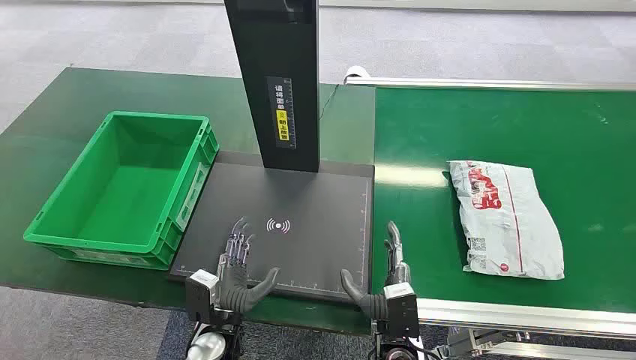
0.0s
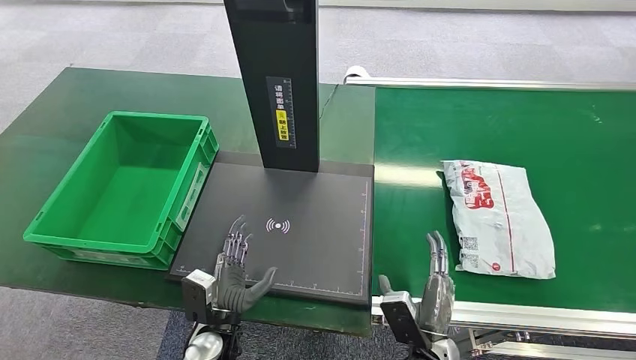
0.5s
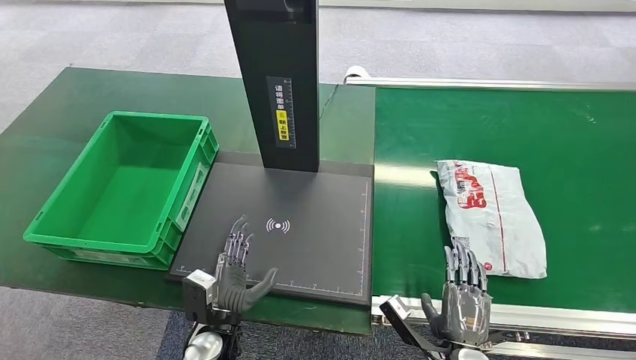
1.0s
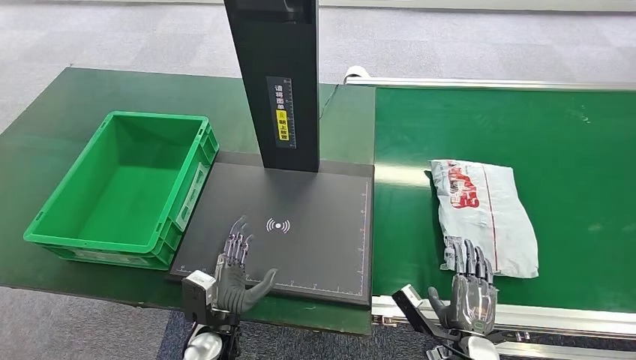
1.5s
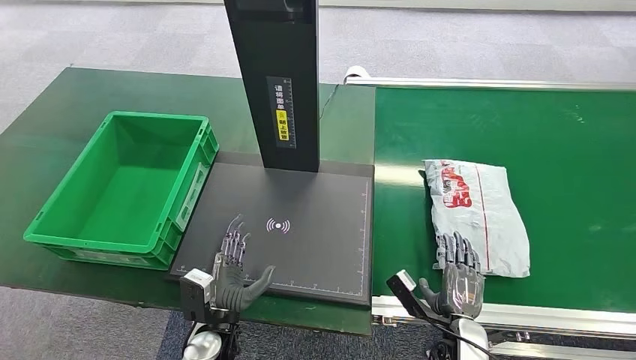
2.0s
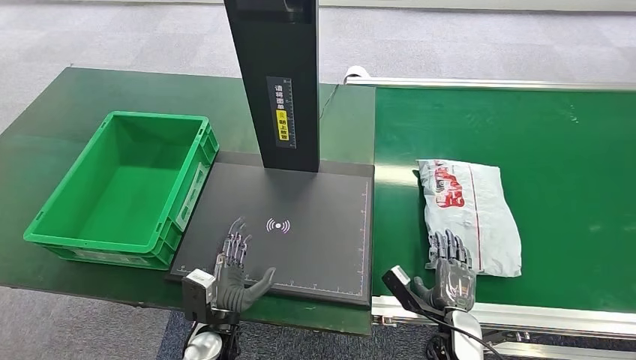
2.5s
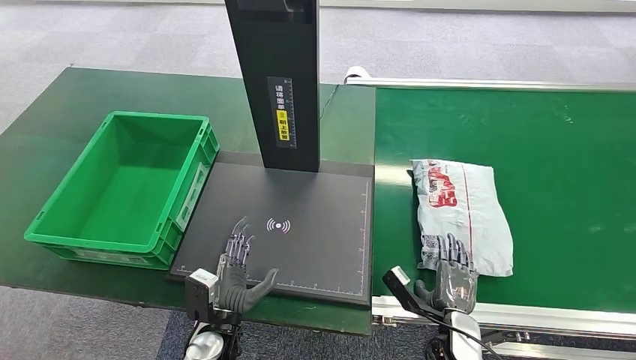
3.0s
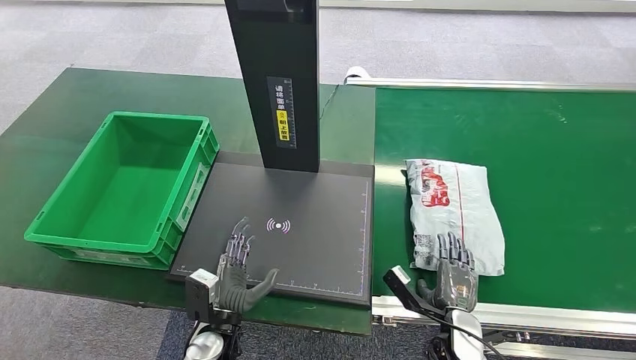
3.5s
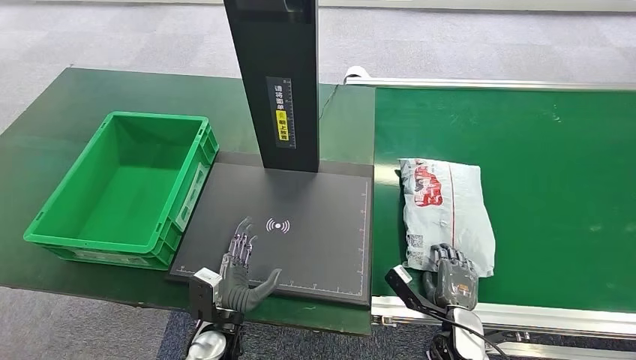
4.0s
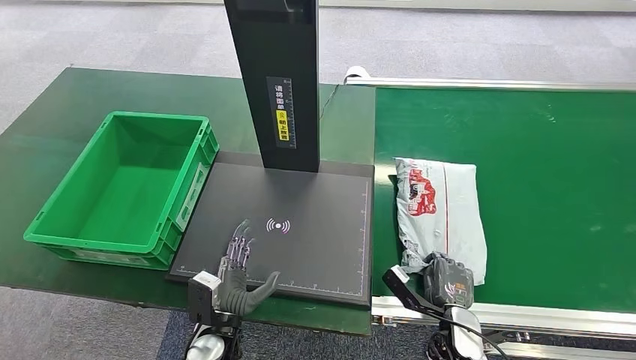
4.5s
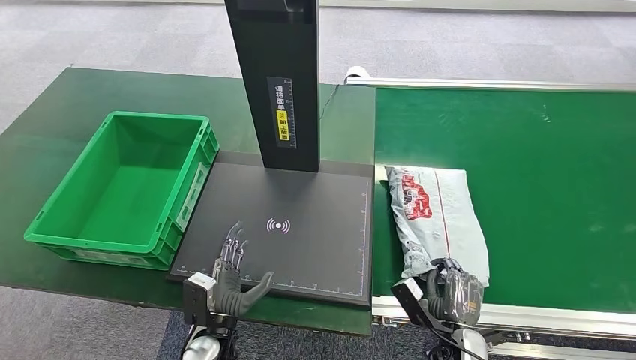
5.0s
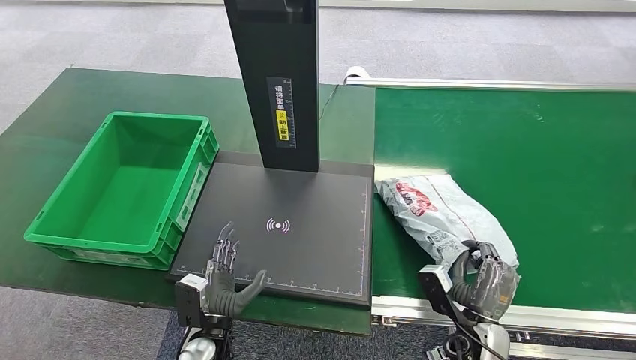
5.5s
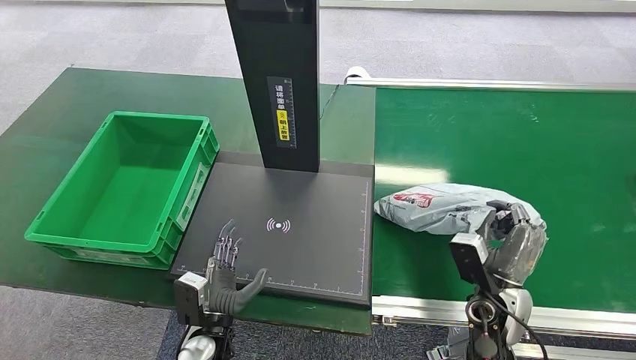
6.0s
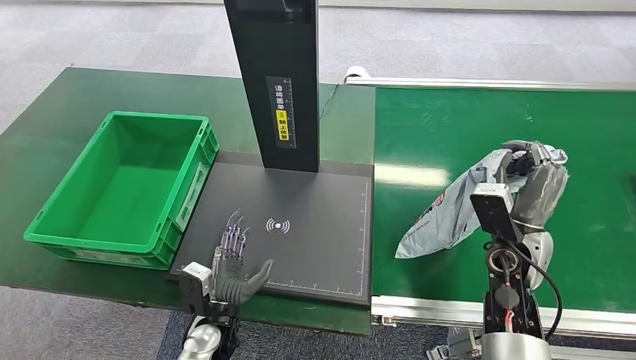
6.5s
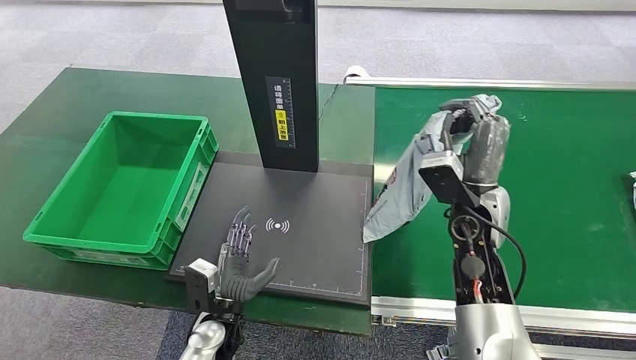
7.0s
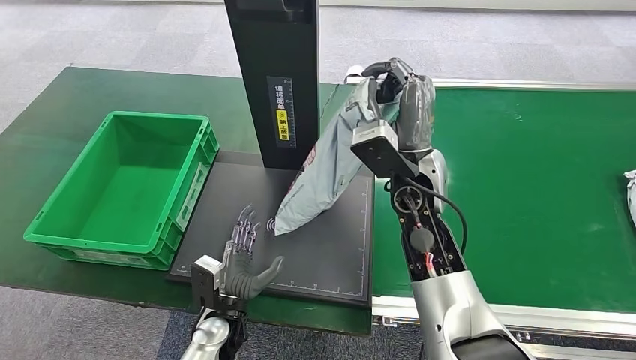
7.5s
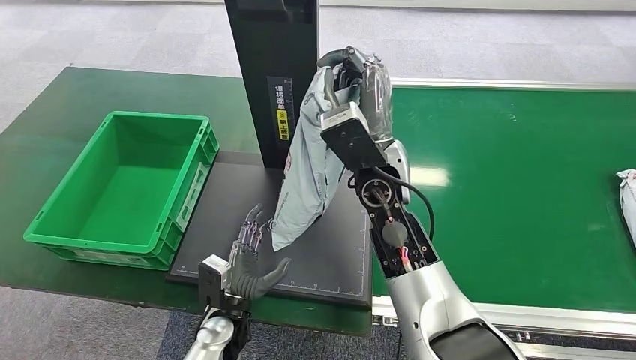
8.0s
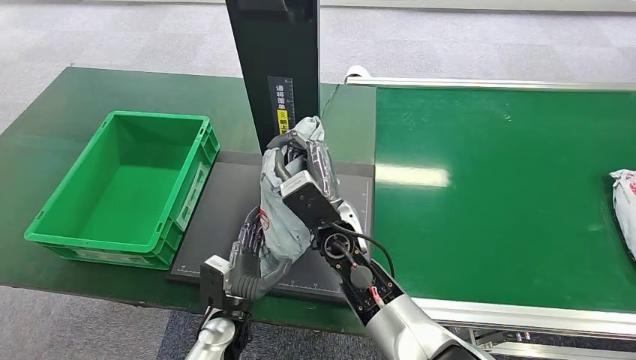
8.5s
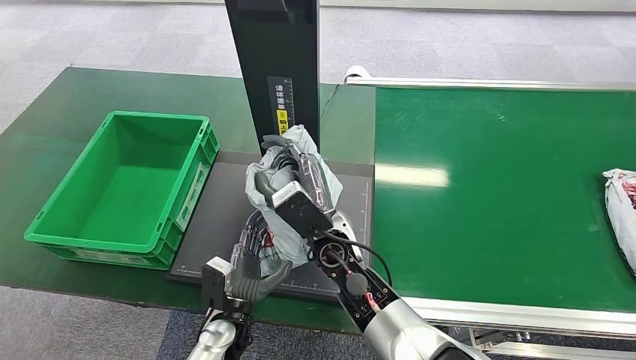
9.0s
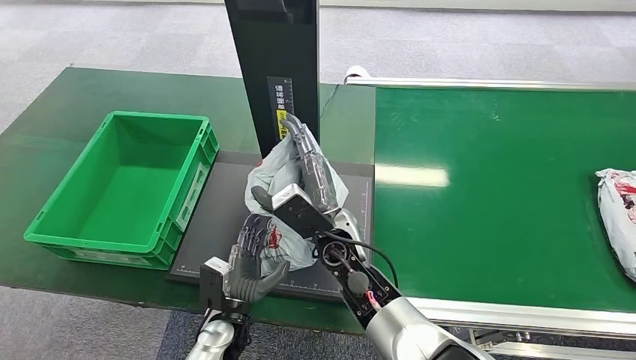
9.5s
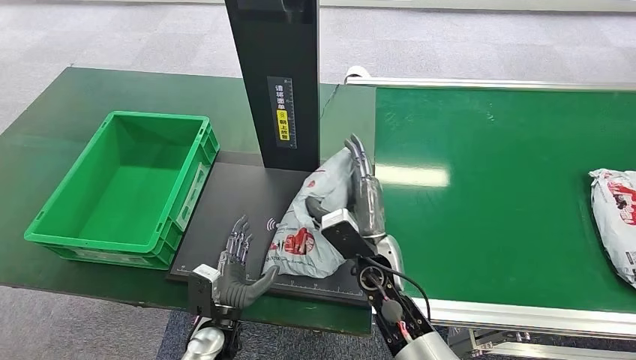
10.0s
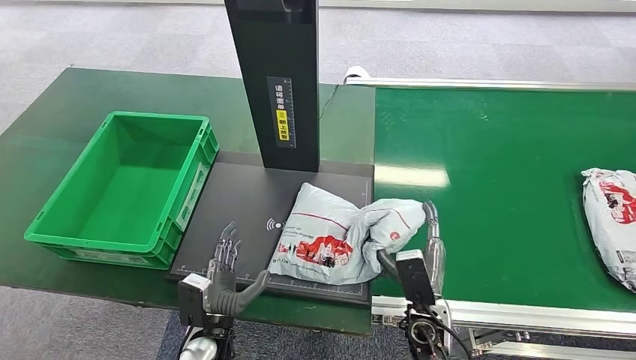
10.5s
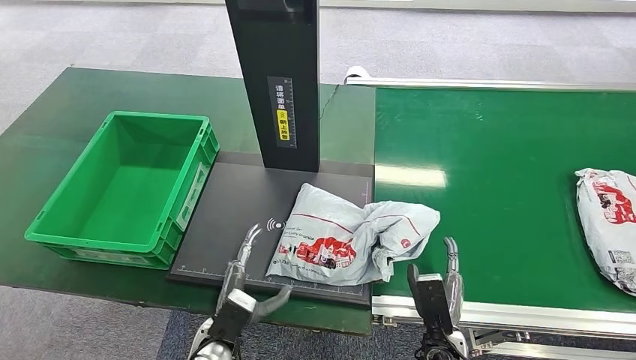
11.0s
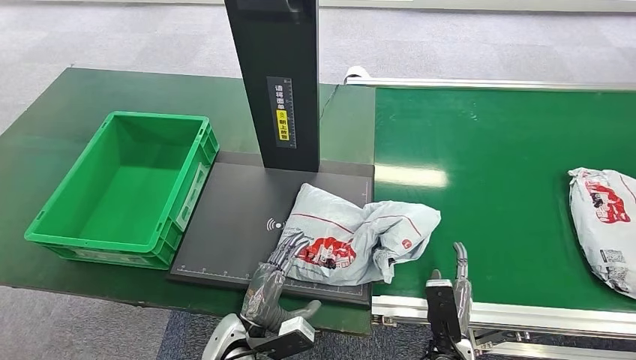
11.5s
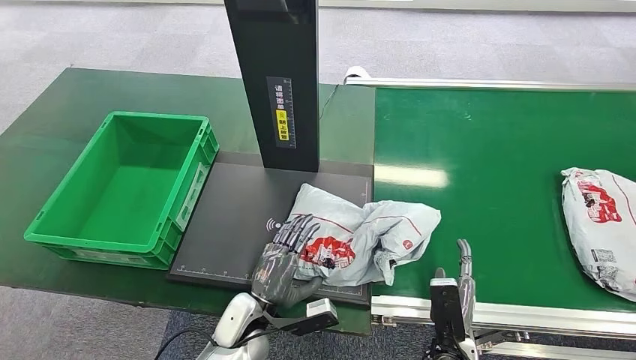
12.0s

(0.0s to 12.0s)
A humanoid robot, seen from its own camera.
Task of the whole recording: Weigh the package on the weighing device and place it in the left basket.
Step, 0.0s - 6.0s: Pick up the package from the conveyor belt.
2.0s - 4.0s: The hands stay close to where they were, moving slightly.
4.0s - 6.0s: The right hand goes roughly 10 cm upward.
8.0s - 10.0s: The right hand moves downward and backward, approximately 20 cm.
10.0s - 12.0s: The left hand moves about 5 cm. The right hand shifts roughly 20 cm backward, to the right and downward.

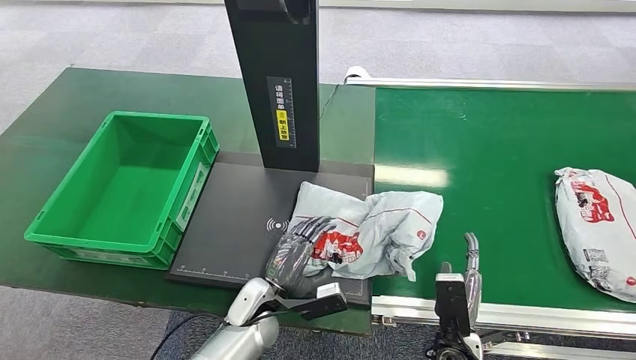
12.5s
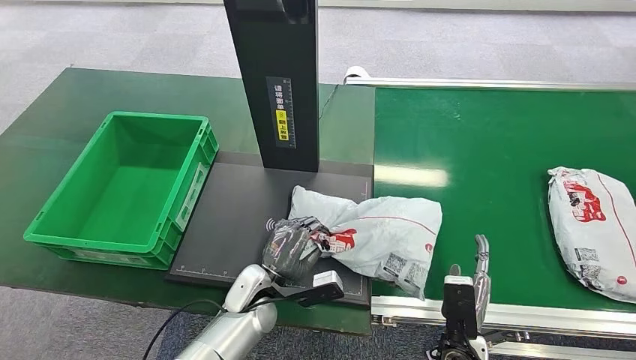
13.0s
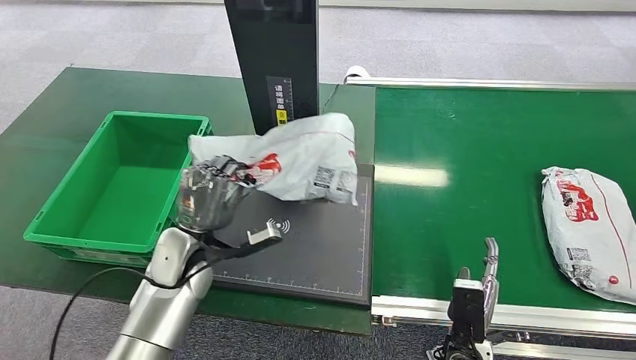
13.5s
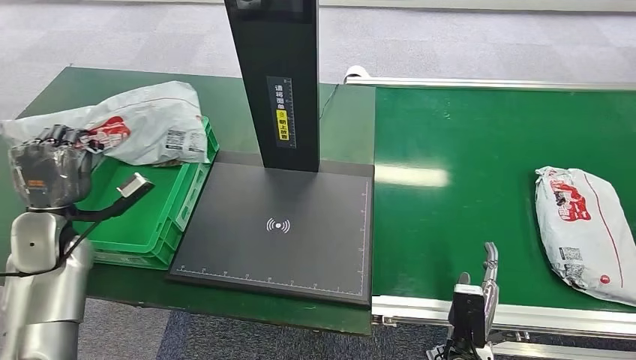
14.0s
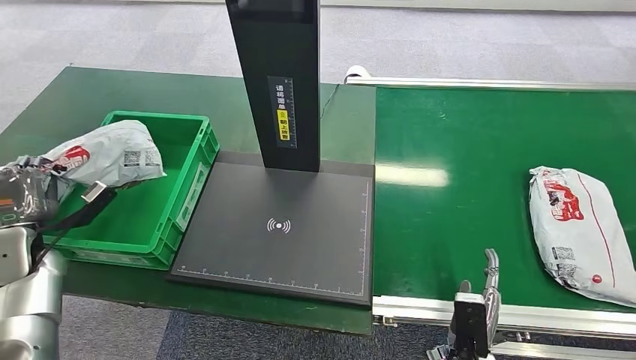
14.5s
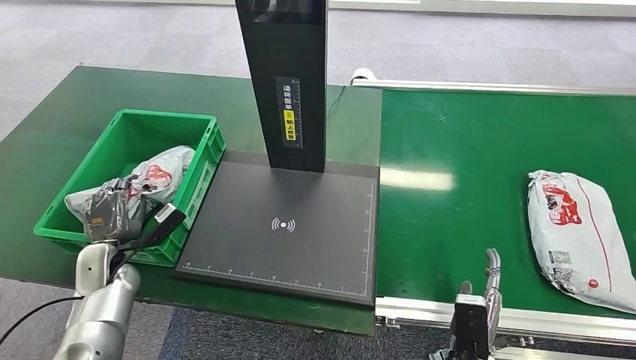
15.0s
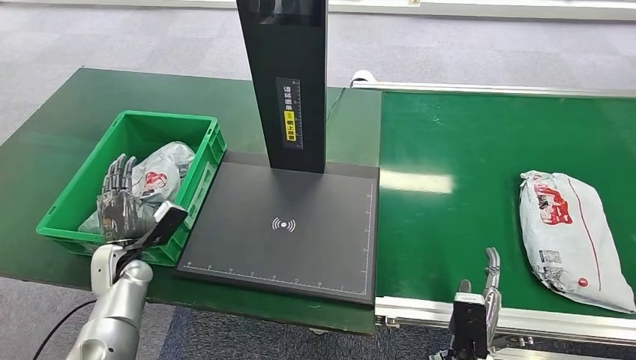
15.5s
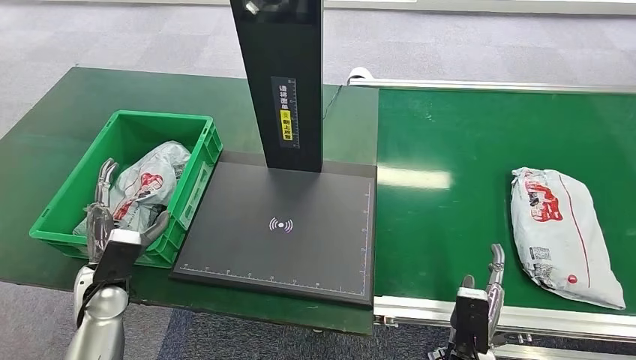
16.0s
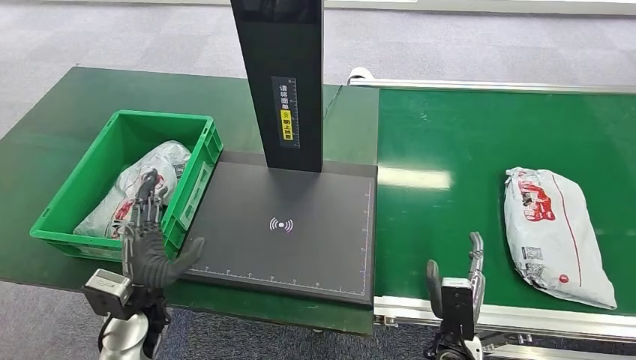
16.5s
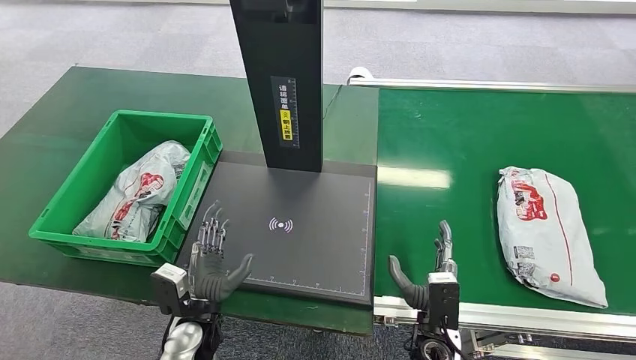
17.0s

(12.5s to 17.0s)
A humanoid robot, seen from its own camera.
Task of the whole recording: Weigh the package on the weighing device and place it in the left basket.
Step, 12.5s - 13.5s: Pick up the package from the inbound machine.
Step, 14.0s - 17.0s: Place the package into the parcel locker.
